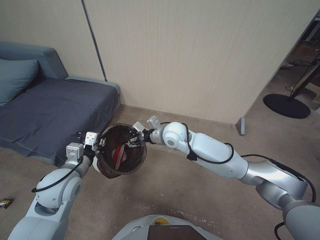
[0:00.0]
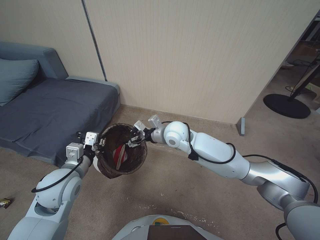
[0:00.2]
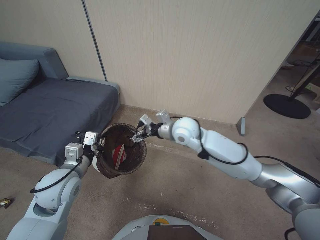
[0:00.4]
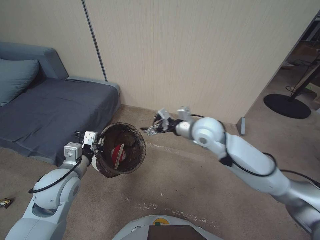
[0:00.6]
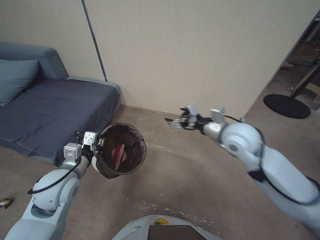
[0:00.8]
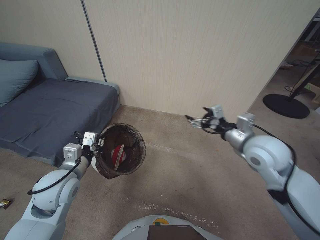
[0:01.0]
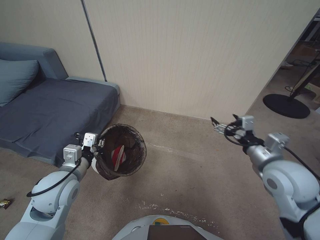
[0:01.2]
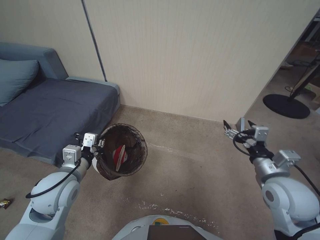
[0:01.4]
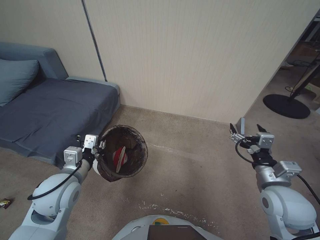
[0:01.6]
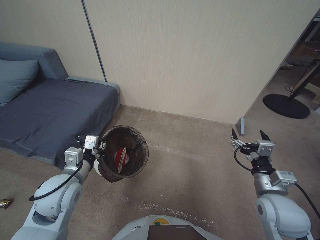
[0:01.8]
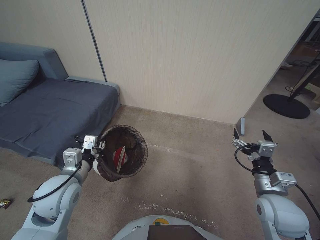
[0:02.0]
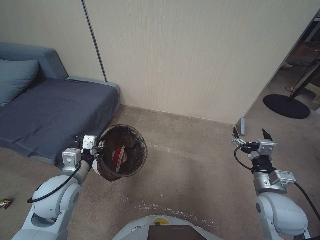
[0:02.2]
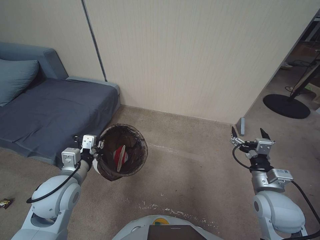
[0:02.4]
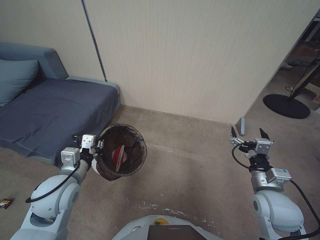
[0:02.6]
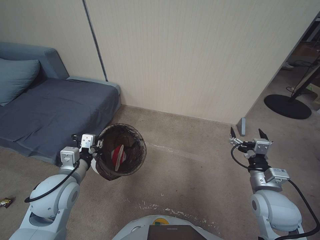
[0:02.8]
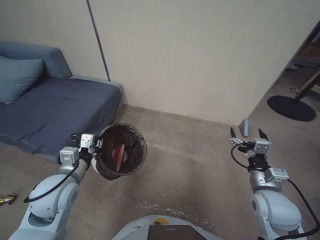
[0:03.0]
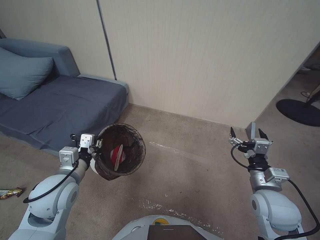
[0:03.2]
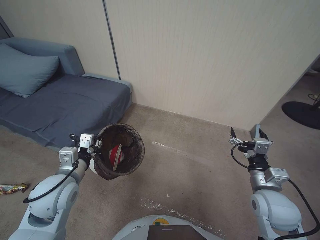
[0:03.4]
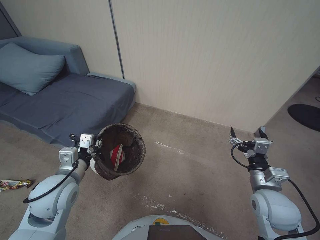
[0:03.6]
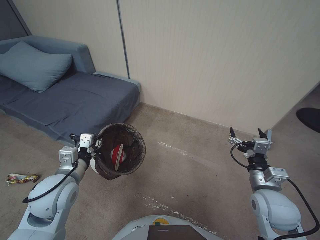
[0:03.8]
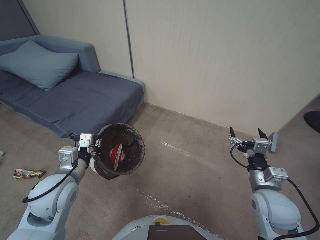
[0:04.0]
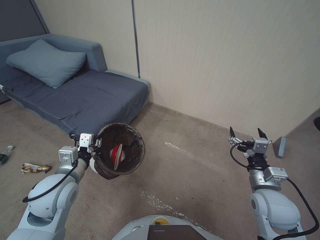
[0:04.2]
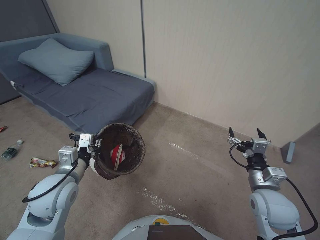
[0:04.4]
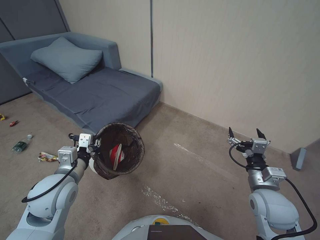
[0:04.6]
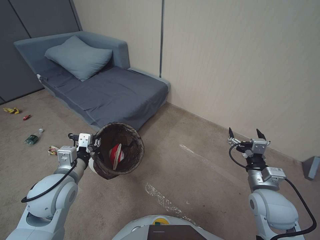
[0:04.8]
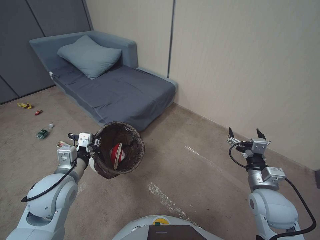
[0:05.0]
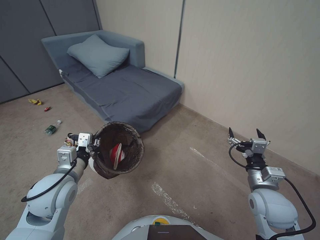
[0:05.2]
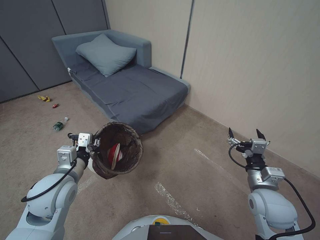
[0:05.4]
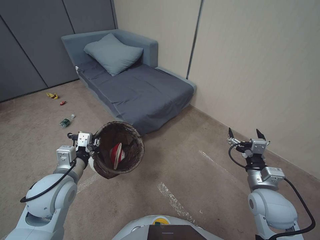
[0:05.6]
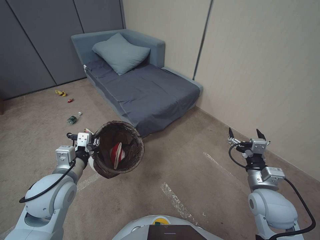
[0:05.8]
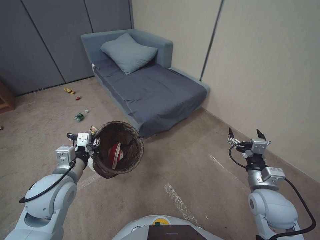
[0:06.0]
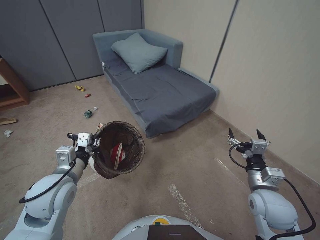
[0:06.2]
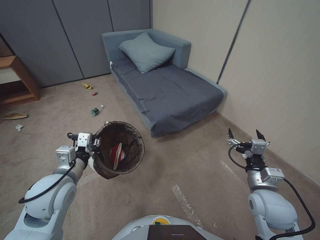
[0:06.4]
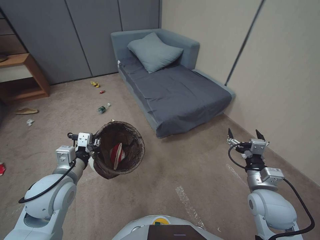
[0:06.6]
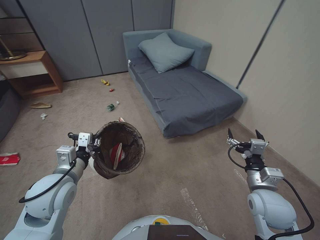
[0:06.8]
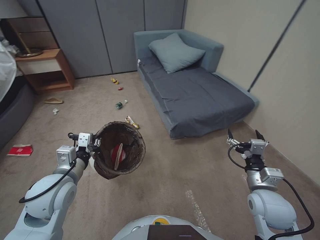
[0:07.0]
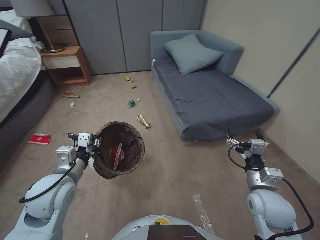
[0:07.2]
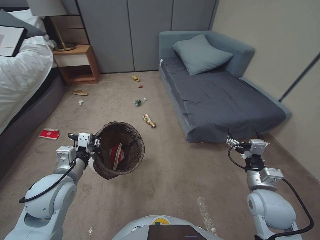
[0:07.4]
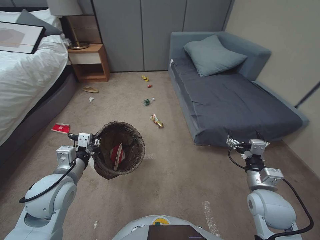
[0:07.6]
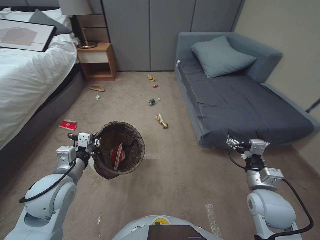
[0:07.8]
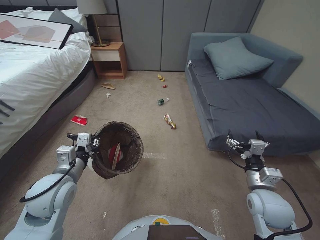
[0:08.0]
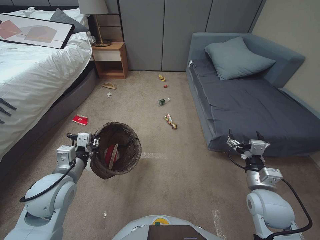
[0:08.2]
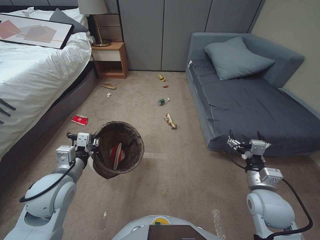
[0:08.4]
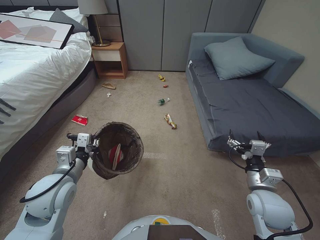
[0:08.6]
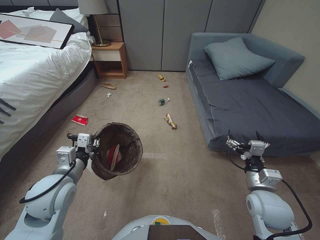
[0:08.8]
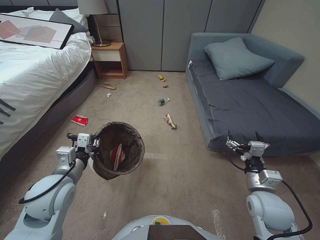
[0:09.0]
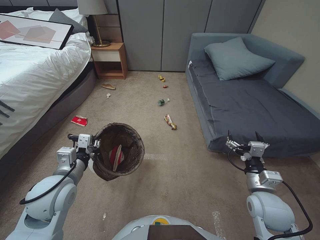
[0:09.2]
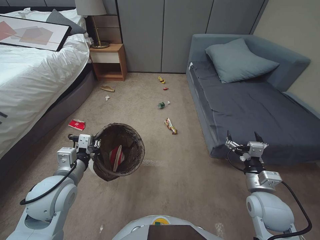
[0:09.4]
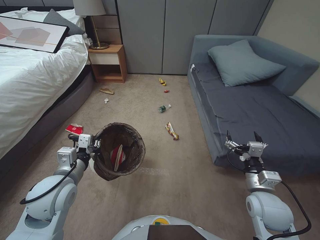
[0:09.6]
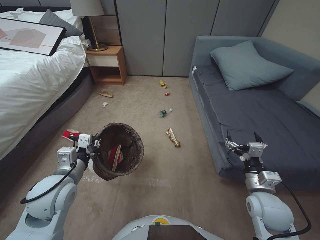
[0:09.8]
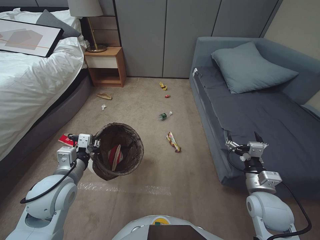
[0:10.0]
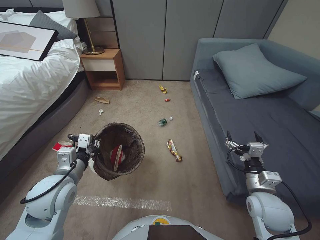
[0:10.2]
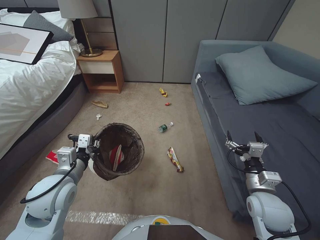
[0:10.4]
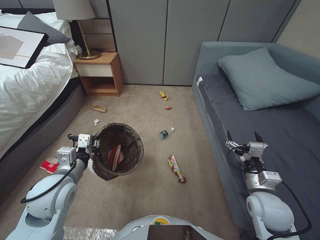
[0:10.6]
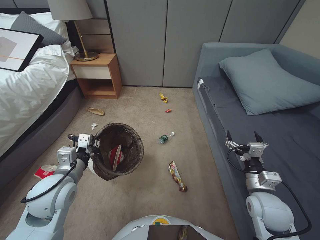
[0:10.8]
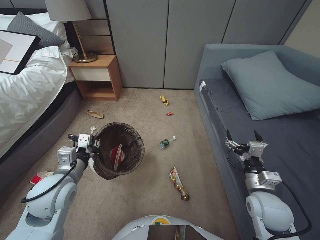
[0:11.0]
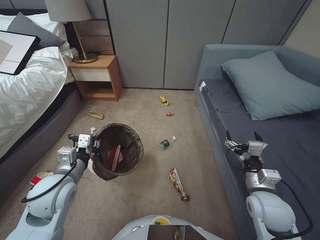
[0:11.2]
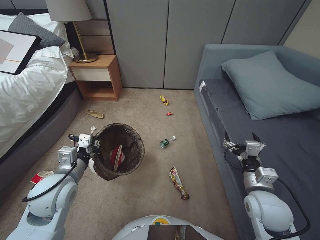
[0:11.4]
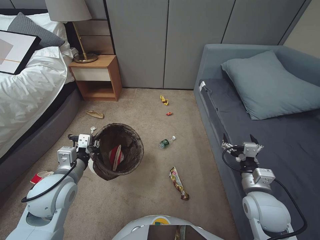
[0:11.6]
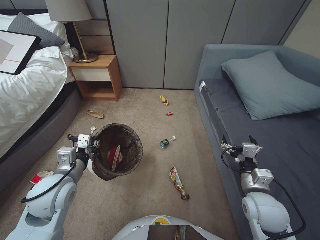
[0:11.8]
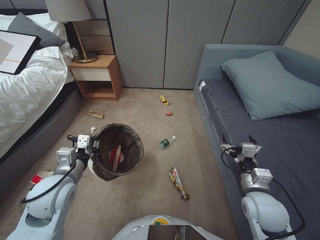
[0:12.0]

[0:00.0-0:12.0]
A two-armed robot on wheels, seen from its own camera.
Task of the whole recording: Pick up the trash bin, then pick up the garbage from the floor and place it into the trash bin.
0:00.0 to 0:01.6: The right gripper travels to the right and backward by about 35 cm, and opens its fingers.
0:01.6 to 0:03.0: The grippers stay close to where they were, moving slightly.
0:10.4 to 0:12.0: The grippers stay close to where they were, moving slightly.

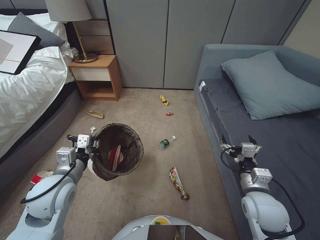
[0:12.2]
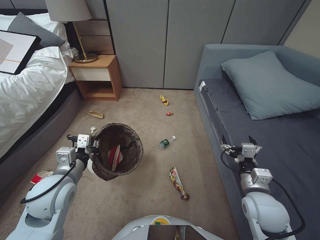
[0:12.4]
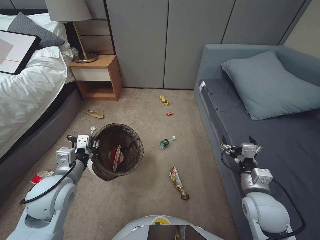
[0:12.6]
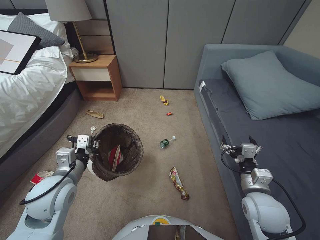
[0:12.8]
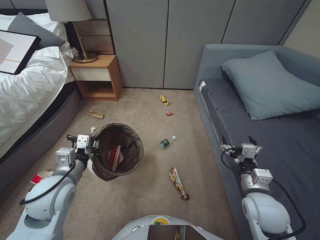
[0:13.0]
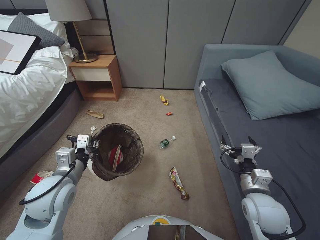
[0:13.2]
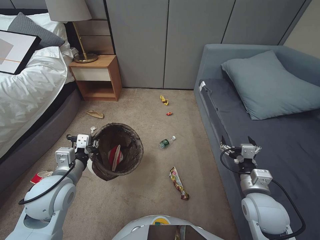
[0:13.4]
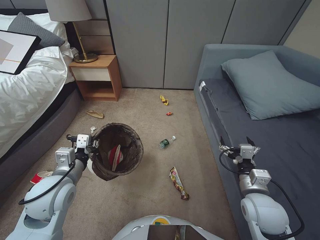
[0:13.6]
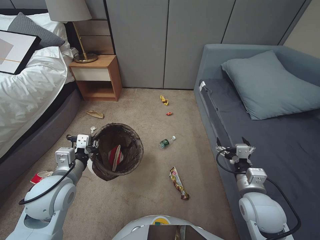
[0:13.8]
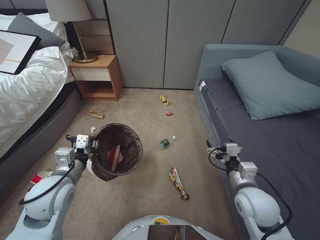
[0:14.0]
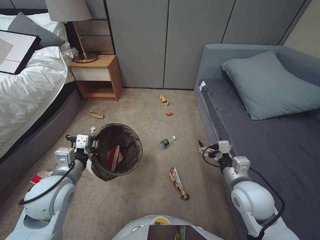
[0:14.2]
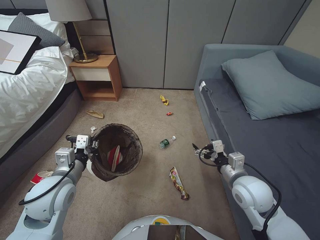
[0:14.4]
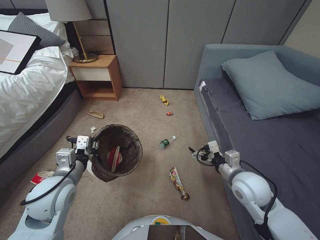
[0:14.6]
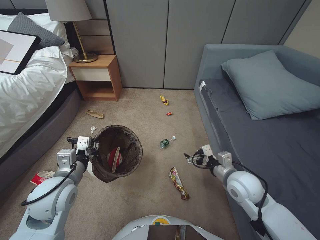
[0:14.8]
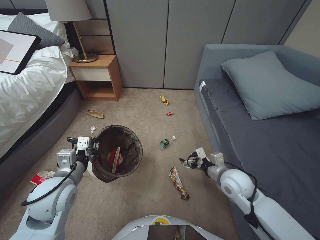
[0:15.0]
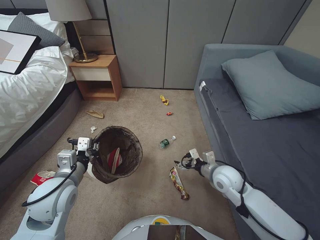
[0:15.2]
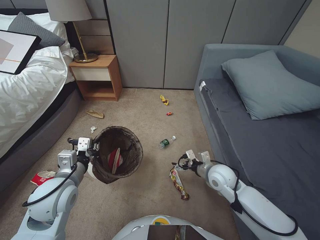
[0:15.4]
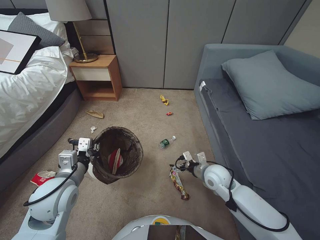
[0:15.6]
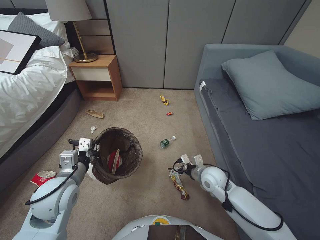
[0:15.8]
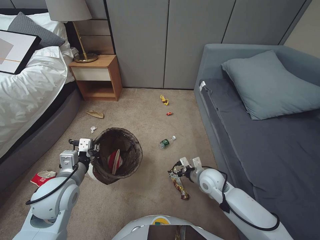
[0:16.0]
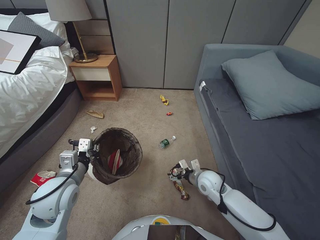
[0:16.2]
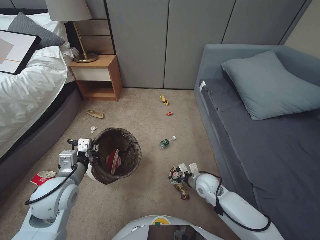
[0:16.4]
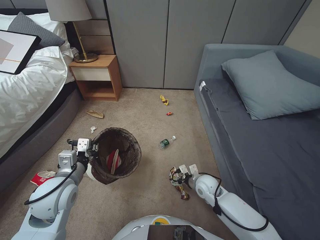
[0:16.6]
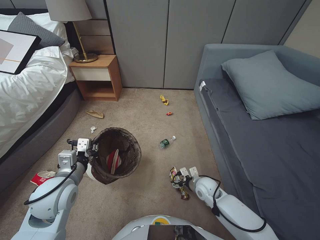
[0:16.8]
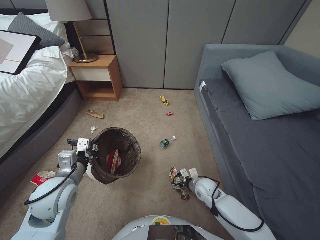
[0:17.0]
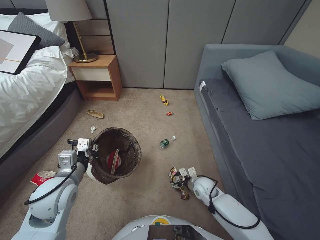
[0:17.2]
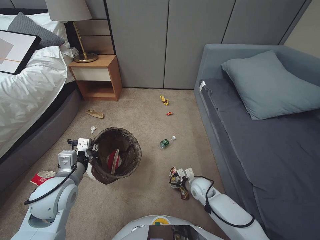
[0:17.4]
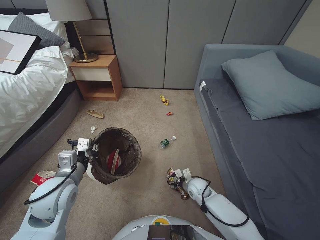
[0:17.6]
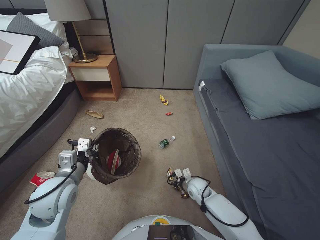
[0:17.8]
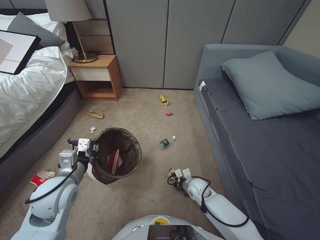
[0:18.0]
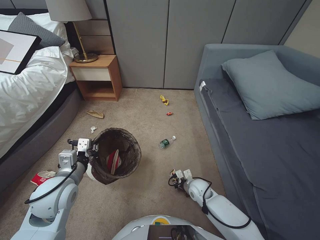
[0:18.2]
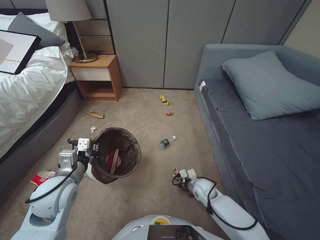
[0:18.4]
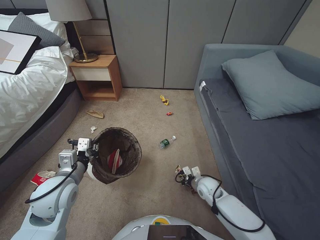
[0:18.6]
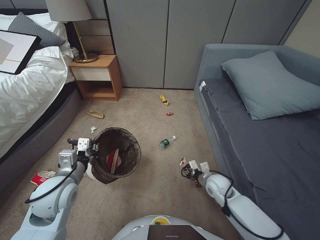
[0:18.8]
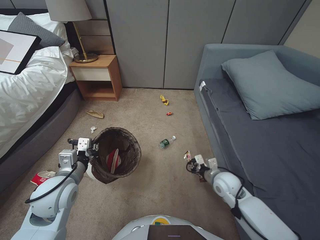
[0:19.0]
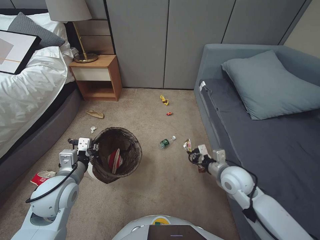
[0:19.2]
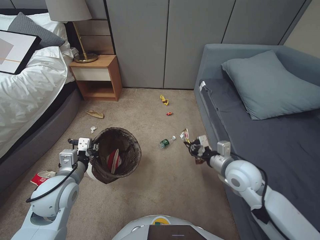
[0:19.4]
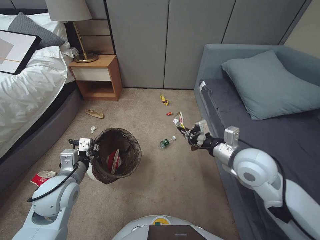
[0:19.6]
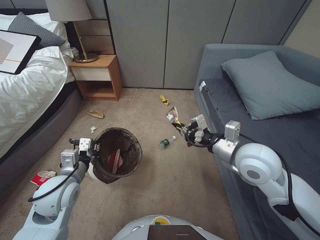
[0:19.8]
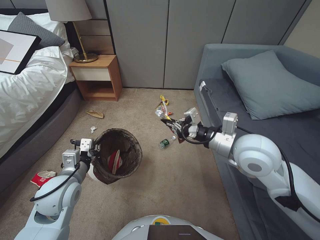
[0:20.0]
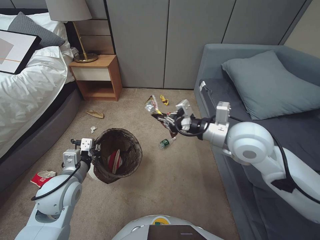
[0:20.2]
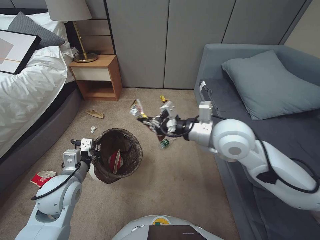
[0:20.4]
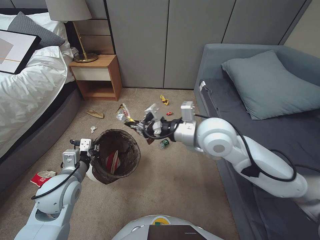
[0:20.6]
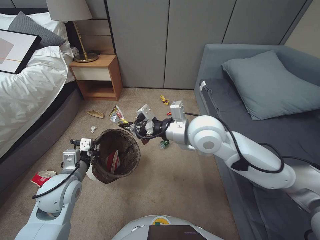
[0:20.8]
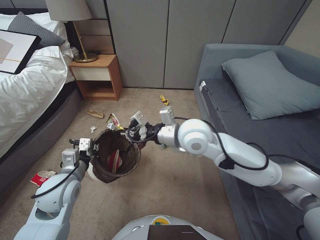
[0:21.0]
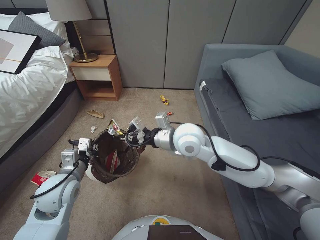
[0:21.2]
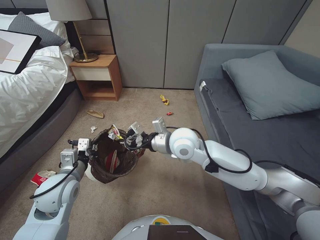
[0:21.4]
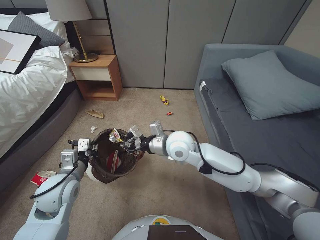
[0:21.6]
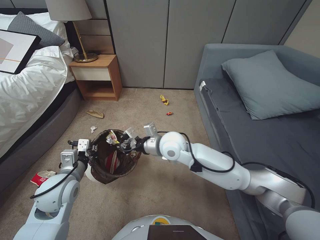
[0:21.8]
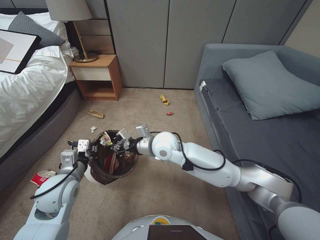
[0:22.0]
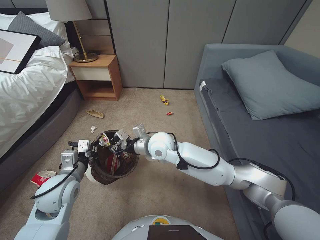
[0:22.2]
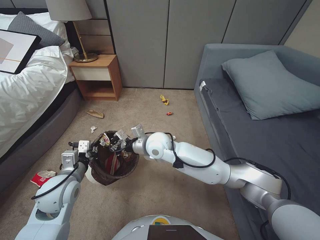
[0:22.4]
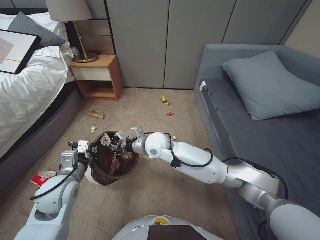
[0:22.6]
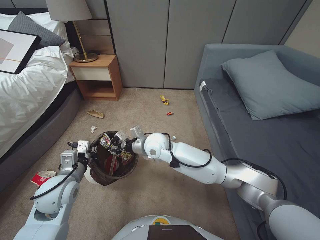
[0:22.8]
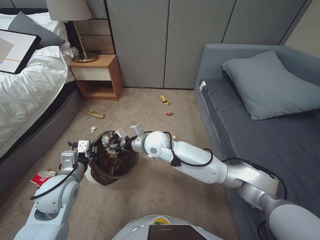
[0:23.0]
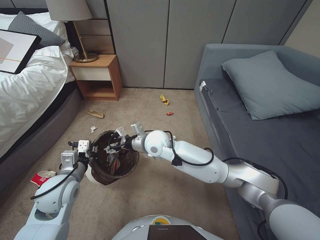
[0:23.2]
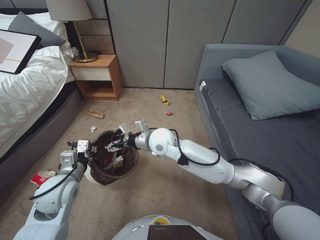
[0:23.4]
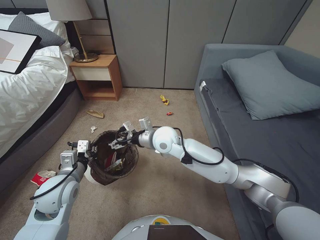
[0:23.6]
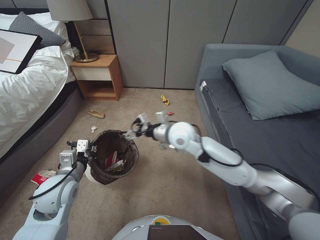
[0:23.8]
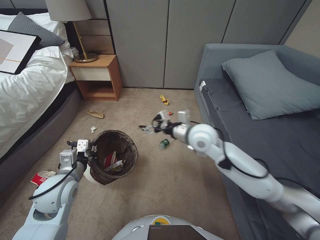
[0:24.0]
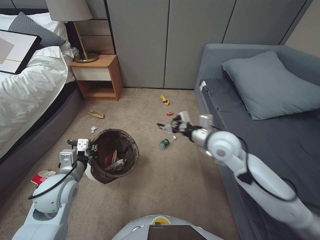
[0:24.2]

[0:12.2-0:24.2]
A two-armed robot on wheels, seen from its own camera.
Task of the whole recording: Pick up the trash bin, then pick up the garbage from the floor and place it into the trash bin.
0:12.2 to 0:13.8: Both grippers stay put.
0:13.8 to 0:15.2: The right gripper heads forward, covering roughly 10 cm.
0:15.2 to 0:16.6: The right gripper goes about 10 cm downward.
0:16.6 to 0:18.2: The right gripper travels downward by about 5 cm, and closes its fingers.
0:18.2 to 0:19.8: The right gripper shifts roughly 35 cm upward.
0:19.8 to 0:21.2: The right gripper shifts about 20 cm to the left and forward.
0:21.2 to 0:22.6: The right gripper travels downward and to the left by roughly 15 cm.
0:22.6 to 0:24.2: The right gripper shifts some 20 cm to the right, and opens.
